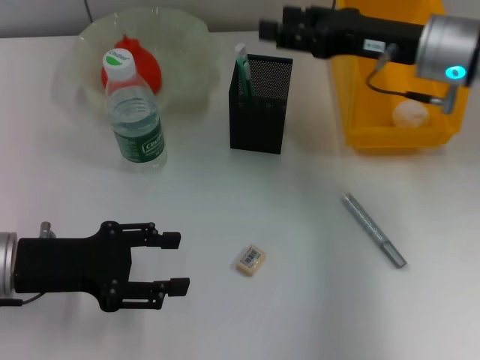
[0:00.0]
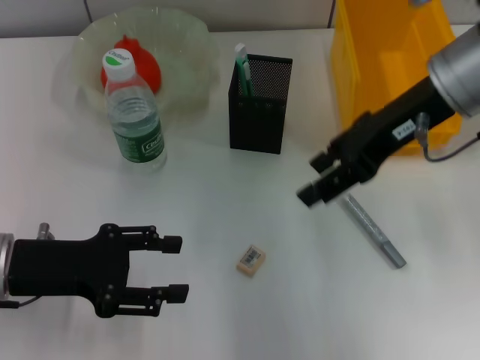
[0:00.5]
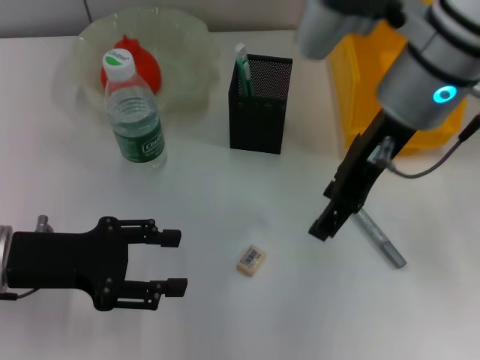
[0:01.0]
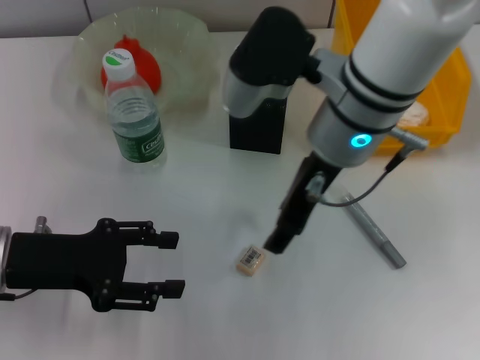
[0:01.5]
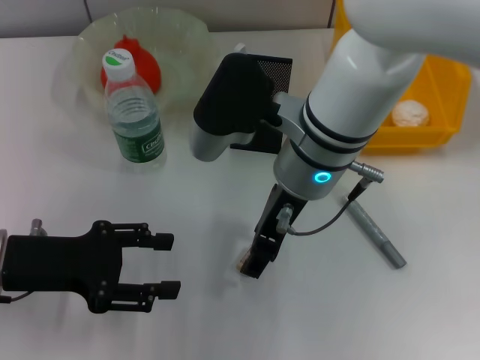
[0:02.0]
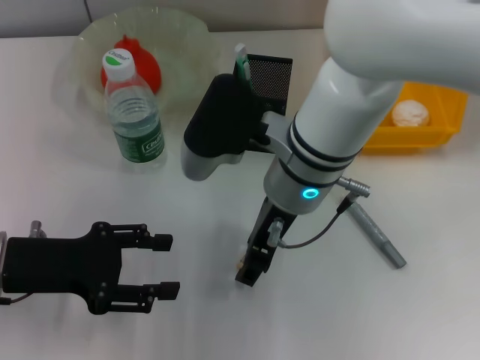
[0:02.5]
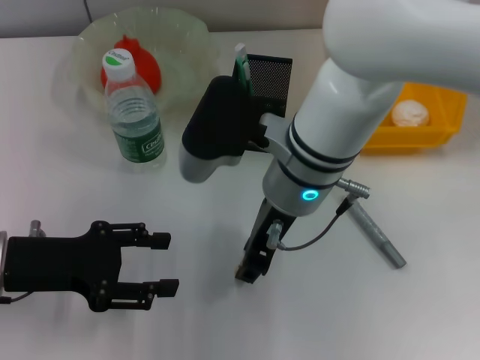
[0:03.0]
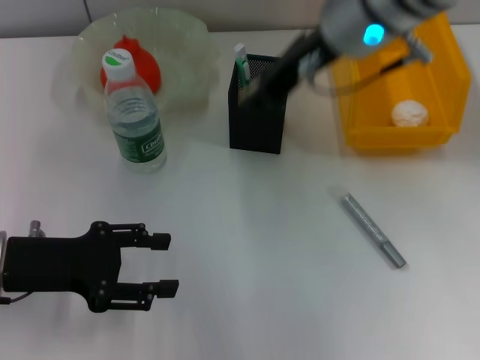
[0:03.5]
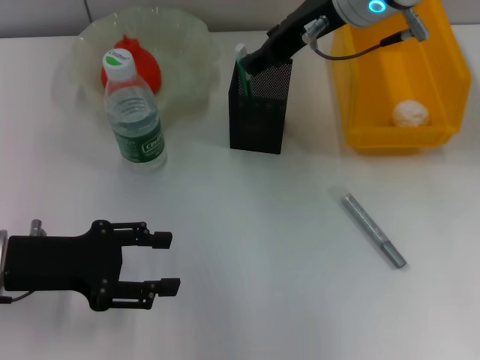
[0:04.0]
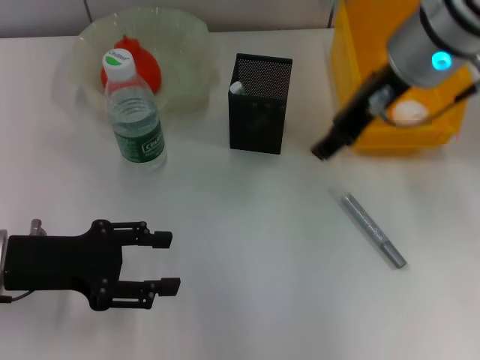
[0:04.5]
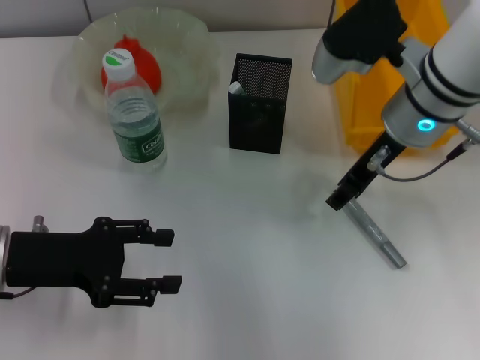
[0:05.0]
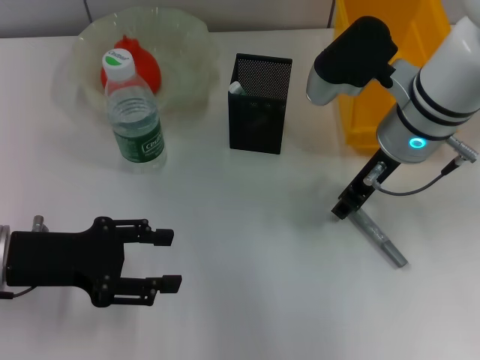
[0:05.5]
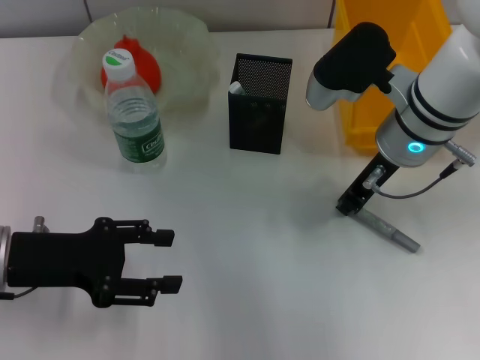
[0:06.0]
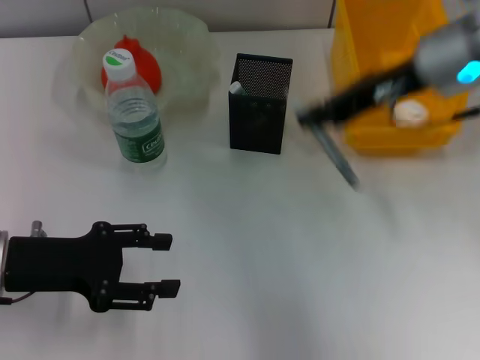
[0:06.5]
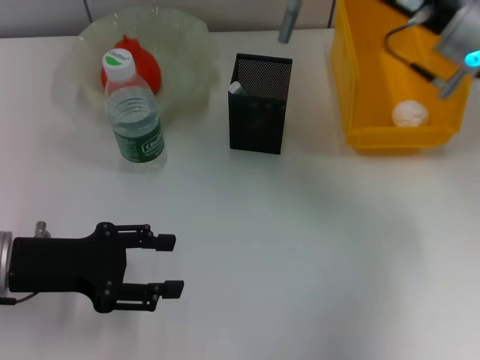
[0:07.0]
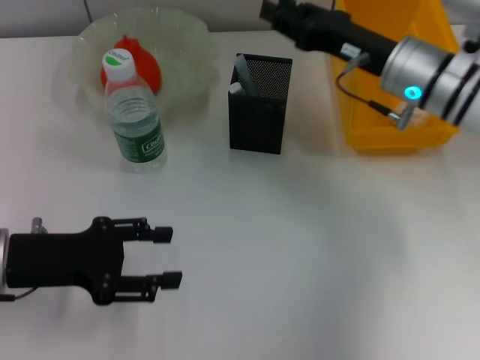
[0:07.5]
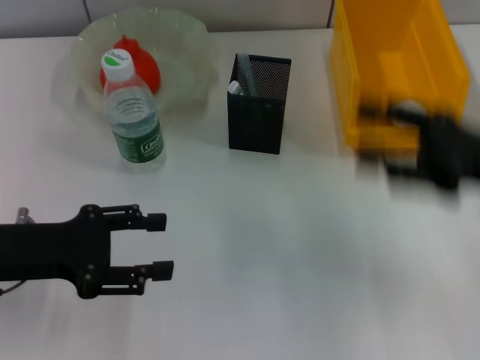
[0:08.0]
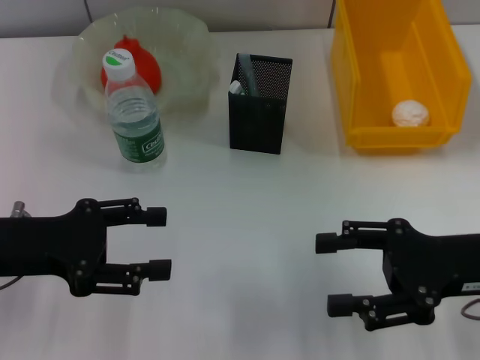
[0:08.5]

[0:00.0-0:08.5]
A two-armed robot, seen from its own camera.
Step, 0:00.0 to 0:02.5: Grab the eraser with the right hand.
Step, 0:03.0 to 0:03.5: Put the eraser into the pen holder with the right hand.
Step, 0:04.0 to 0:05.5: Grab the gray glue with the right hand.
Step, 0:06.5 to 0:07.0: Place the gray glue into the pen holder with the right hand.
0:00.0 to 0:02.0: The right gripper moves to the left and backward, approximately 15 cm.
0:02.0 to 0:04.0: The right gripper goes some 15 cm upward, forward and to the right.
0:04.0 to 0:06.5: The right gripper is displaced to the right by approximately 10 cm, travels downward and back again, about 10 cm each way, and closes.
0:06.5 to 0:08.5: The right gripper heads backward, downward and to the right, covering roughly 20 cm, and opens.
